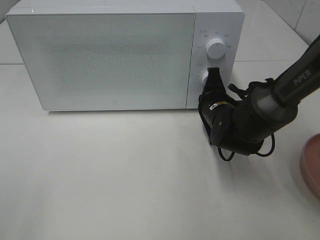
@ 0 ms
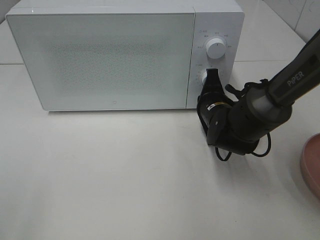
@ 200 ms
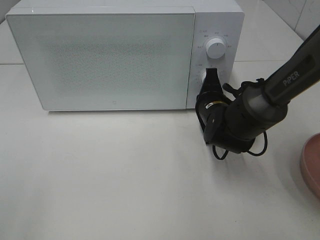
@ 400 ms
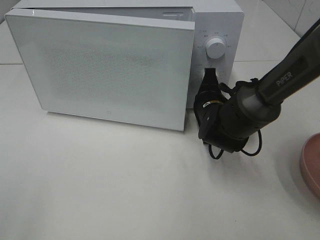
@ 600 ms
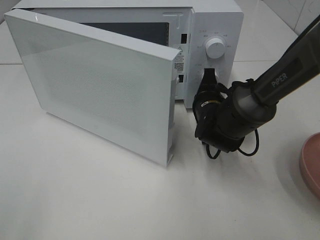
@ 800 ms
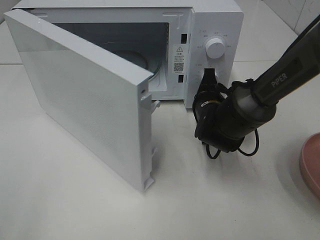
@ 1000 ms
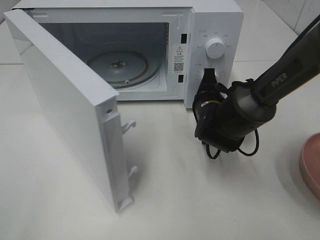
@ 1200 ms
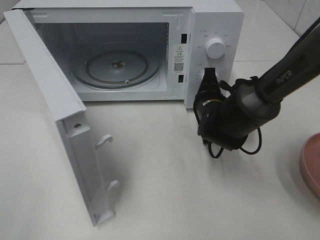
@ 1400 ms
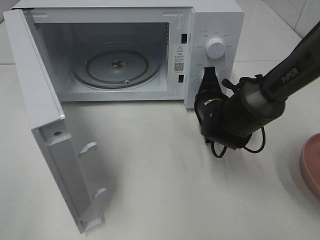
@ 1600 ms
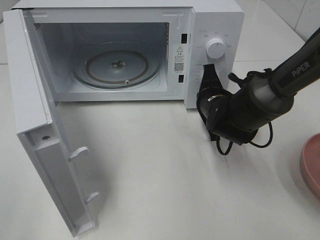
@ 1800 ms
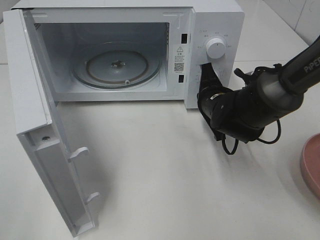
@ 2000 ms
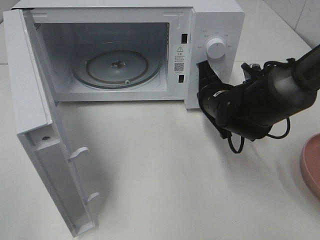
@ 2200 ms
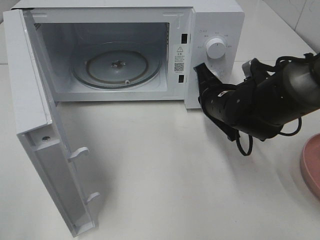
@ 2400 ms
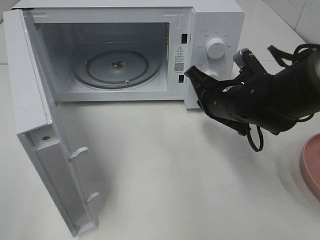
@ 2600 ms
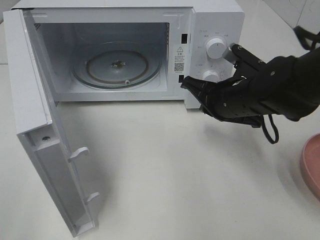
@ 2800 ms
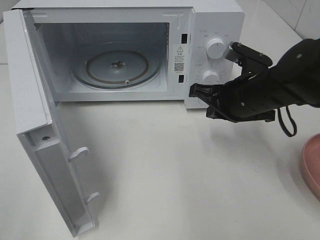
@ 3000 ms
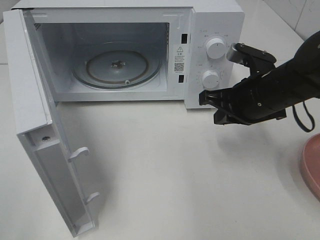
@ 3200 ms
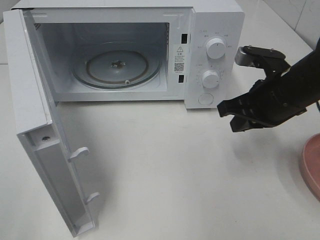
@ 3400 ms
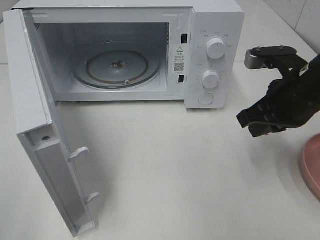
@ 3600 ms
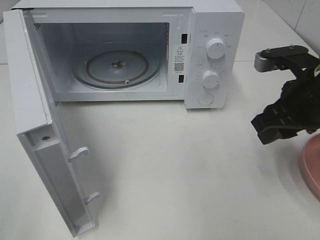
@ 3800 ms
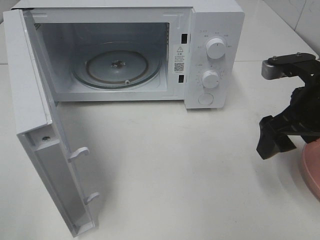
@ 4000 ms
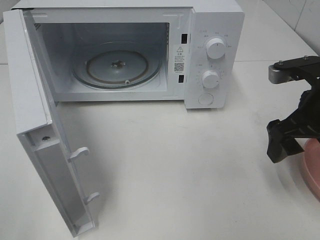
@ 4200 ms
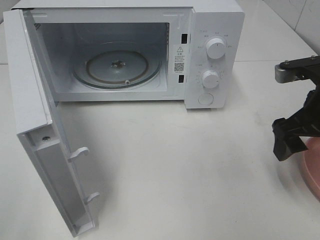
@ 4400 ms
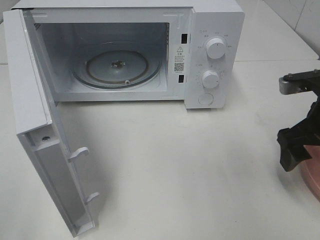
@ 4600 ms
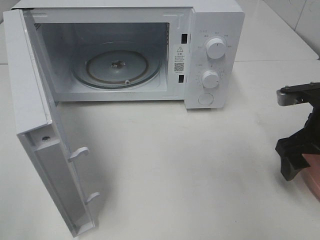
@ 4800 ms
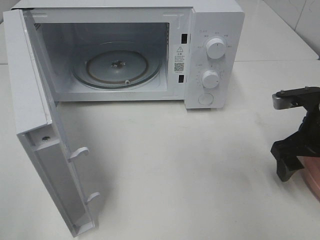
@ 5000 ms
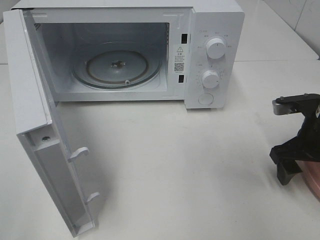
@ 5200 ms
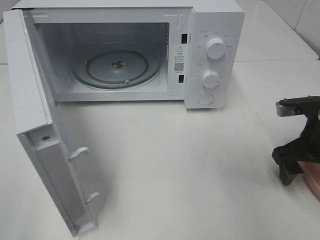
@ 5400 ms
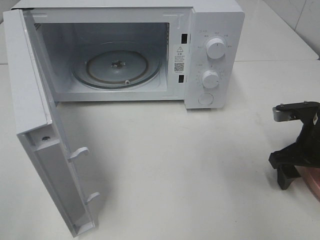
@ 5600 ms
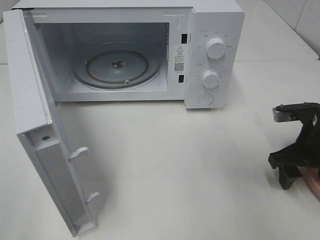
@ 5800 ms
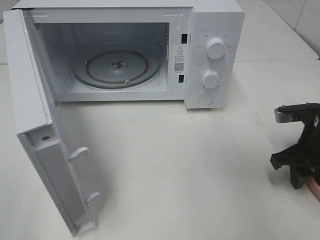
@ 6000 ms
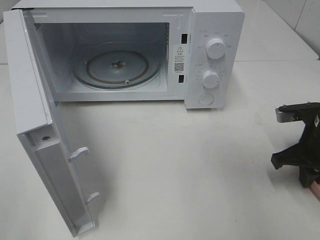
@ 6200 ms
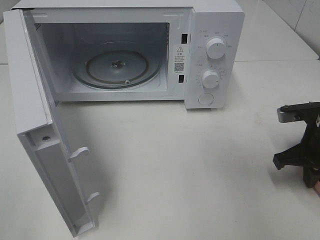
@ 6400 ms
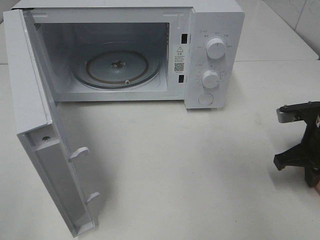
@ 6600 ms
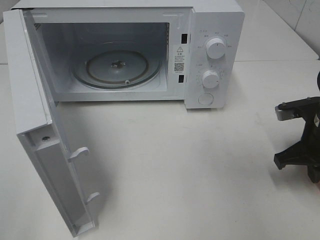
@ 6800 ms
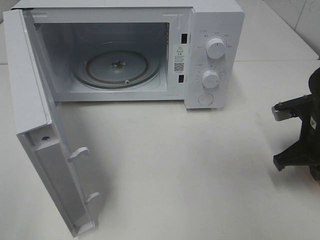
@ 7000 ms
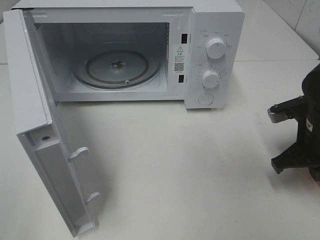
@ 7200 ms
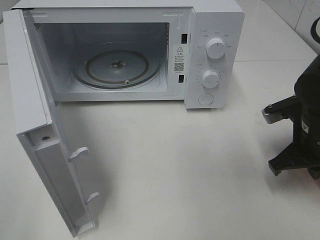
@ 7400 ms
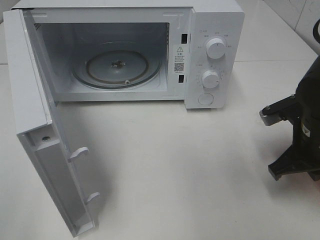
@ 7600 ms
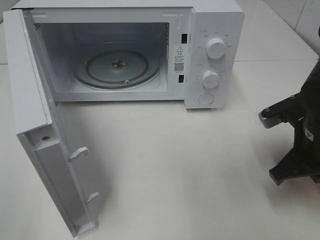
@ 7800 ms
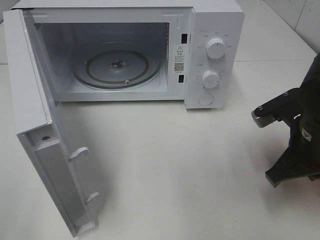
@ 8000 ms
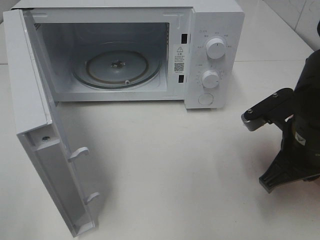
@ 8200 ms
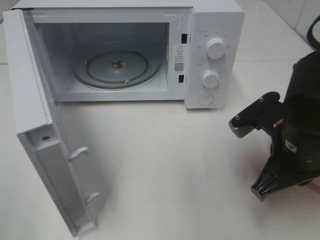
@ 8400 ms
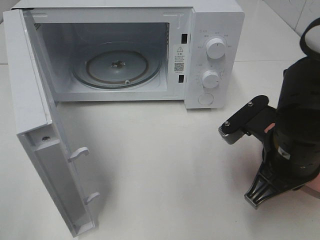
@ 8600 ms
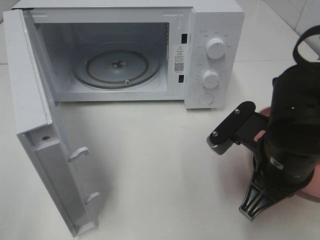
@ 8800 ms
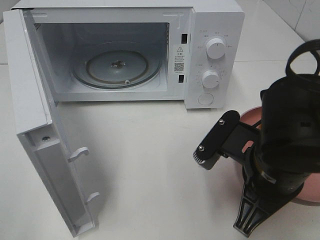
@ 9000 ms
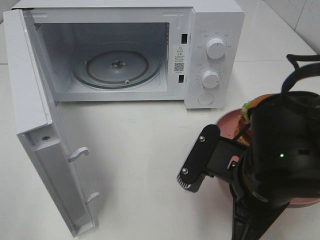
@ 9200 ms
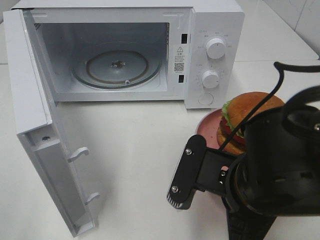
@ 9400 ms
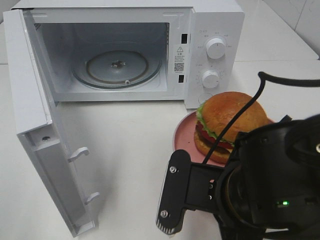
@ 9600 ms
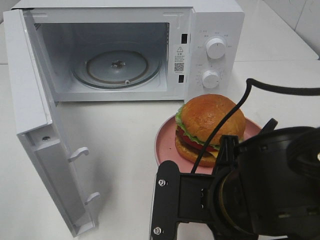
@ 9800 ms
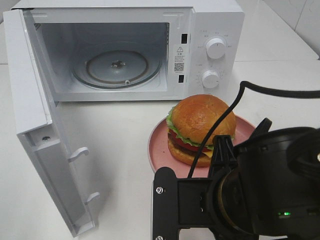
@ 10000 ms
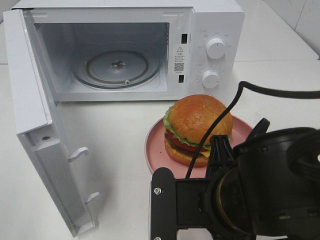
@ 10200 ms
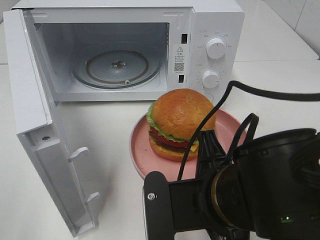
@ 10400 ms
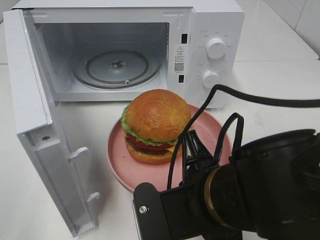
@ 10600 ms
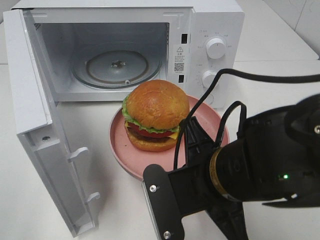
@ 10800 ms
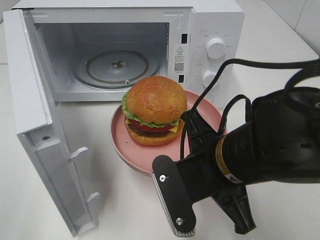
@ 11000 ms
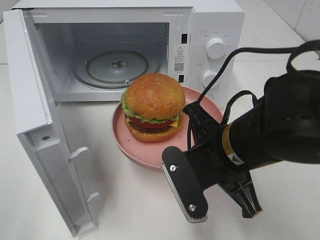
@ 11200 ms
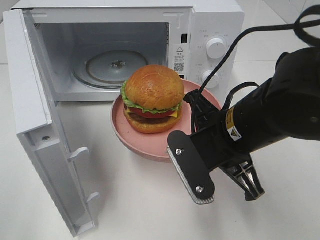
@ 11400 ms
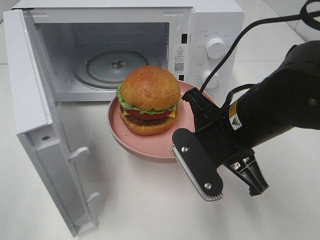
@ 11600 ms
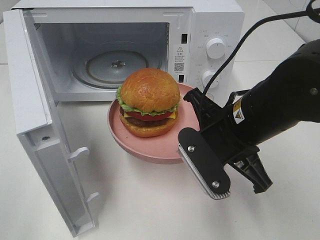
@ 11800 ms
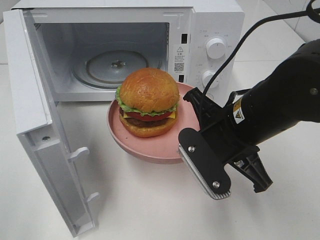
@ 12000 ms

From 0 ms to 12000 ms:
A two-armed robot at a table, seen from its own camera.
Task of the whole recording: Heat the burger.
Step, from 0 ms to 2200 ms: Right hand: press the switch.
Step, from 2400 ms to 6600 ms: Right hand: grab the plate with the hamburger.
From 1600 ms to 3000 ms: The right gripper moves upward and backward, approximately 10 cm.
From 3000 ms to 4400 ms: The right gripper moves to the right and backward, some 10 cm, and opens its fingers.
From 4400 ms to 6000 ms: The right gripper is displaced downward by roughly 10 cm, and closes up.
From 6000 ms to 7600 ms: The right gripper ends up approximately 5 cm from where it was, and closes up.
From 7600 ms to 9000 ms: The right gripper shifts some 15 cm to the left and backward.
From 9000 ms to 10400 ms: The right gripper heads to the left, covering roughly 5 cm.
From 10400 ms to 12000 ms: The right gripper shifts about 10 cm forward.

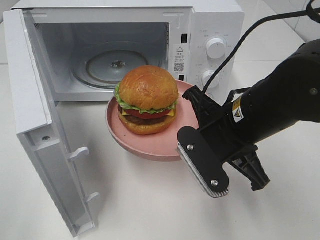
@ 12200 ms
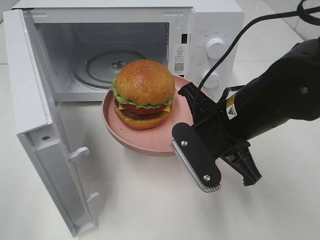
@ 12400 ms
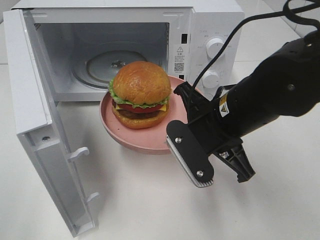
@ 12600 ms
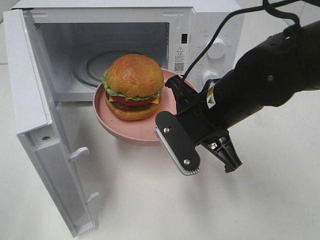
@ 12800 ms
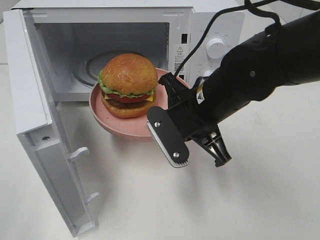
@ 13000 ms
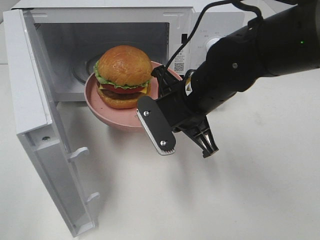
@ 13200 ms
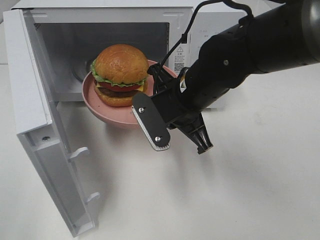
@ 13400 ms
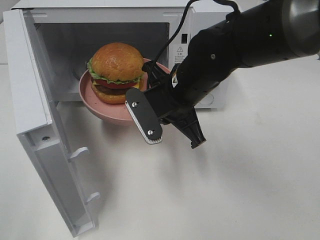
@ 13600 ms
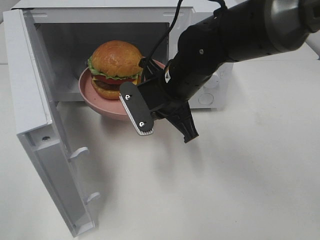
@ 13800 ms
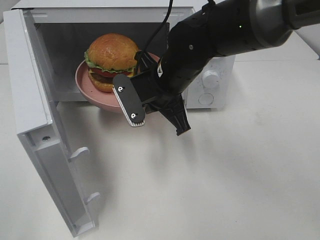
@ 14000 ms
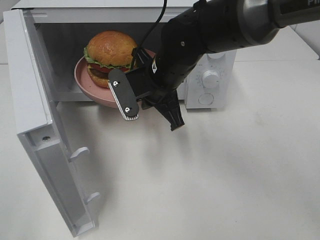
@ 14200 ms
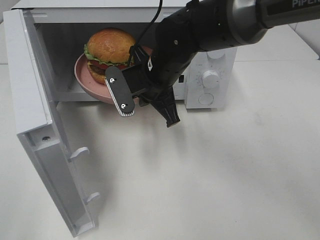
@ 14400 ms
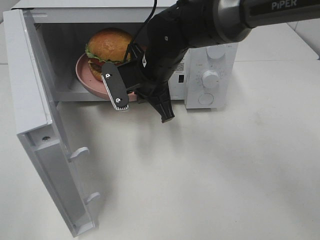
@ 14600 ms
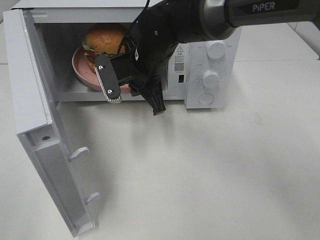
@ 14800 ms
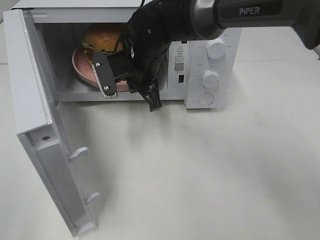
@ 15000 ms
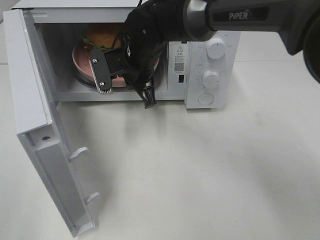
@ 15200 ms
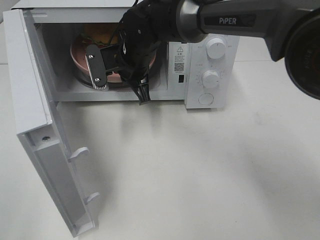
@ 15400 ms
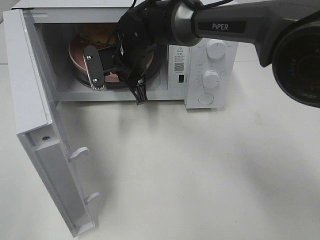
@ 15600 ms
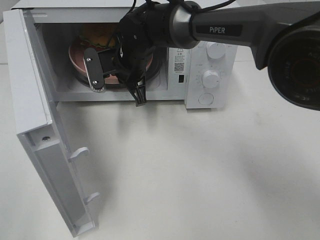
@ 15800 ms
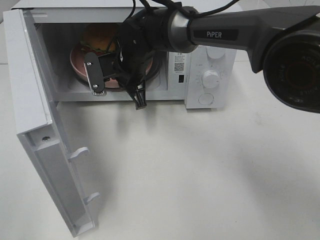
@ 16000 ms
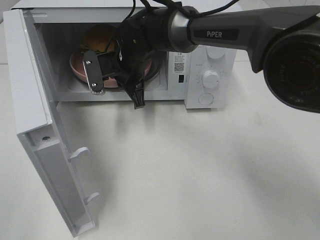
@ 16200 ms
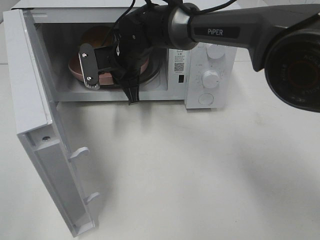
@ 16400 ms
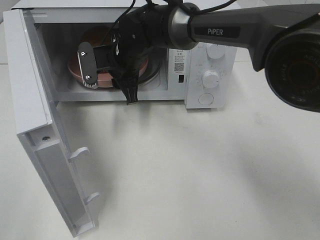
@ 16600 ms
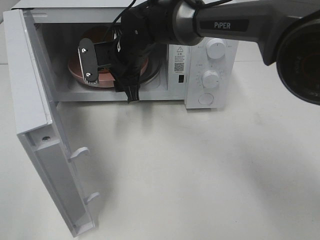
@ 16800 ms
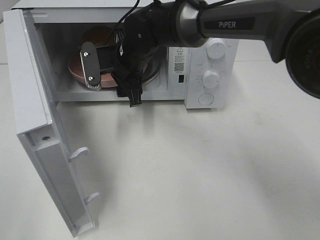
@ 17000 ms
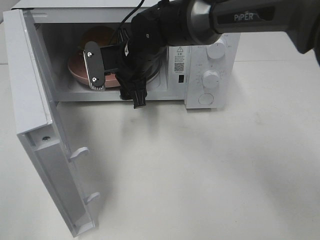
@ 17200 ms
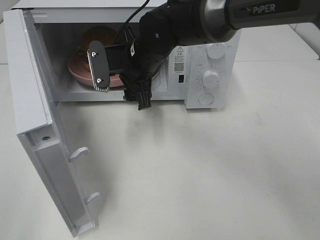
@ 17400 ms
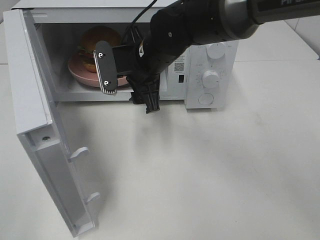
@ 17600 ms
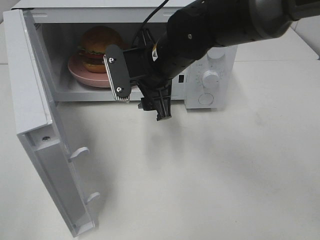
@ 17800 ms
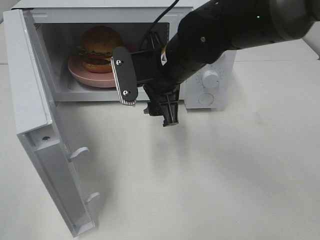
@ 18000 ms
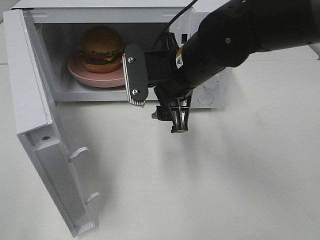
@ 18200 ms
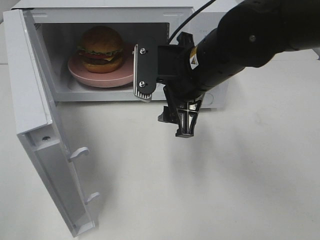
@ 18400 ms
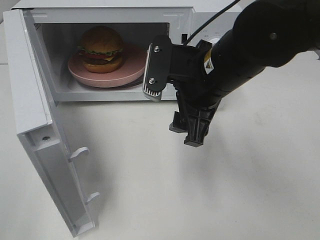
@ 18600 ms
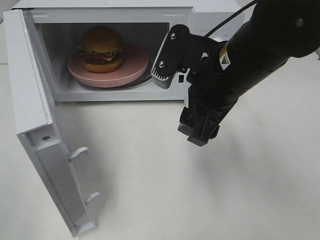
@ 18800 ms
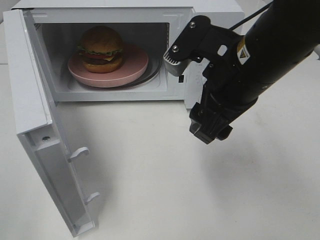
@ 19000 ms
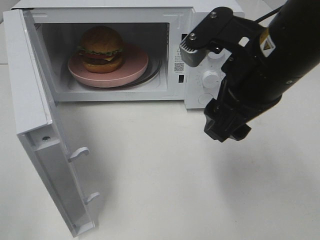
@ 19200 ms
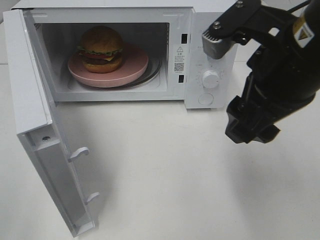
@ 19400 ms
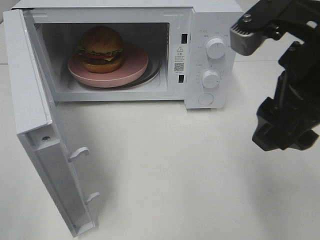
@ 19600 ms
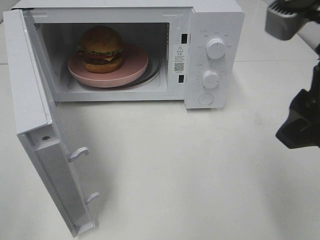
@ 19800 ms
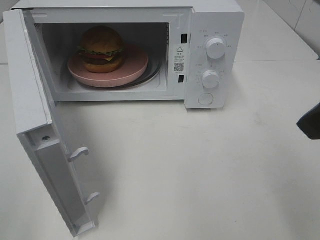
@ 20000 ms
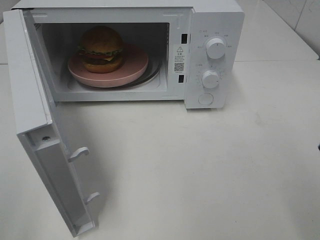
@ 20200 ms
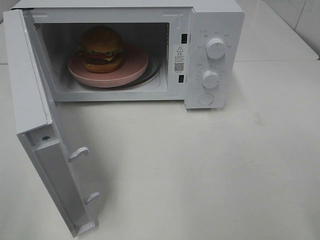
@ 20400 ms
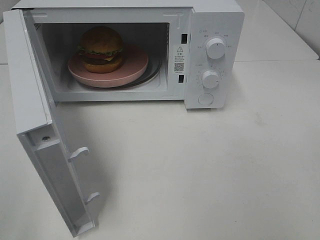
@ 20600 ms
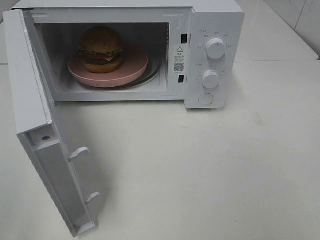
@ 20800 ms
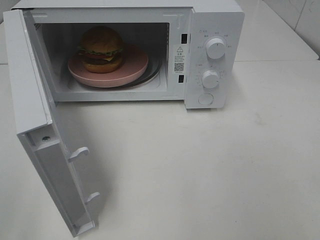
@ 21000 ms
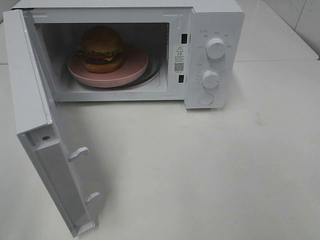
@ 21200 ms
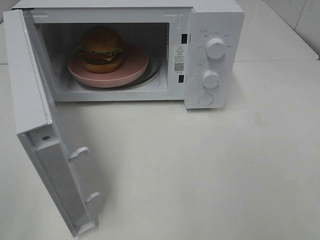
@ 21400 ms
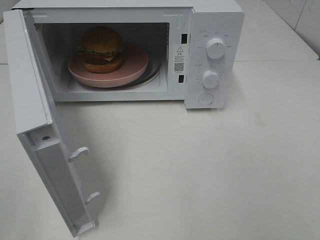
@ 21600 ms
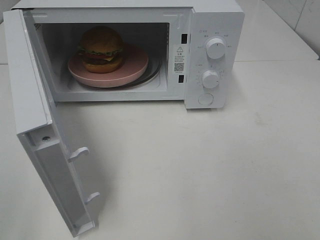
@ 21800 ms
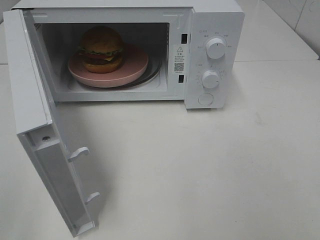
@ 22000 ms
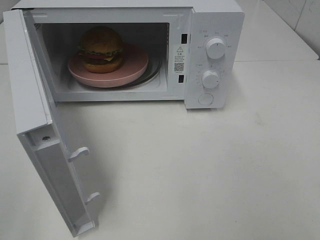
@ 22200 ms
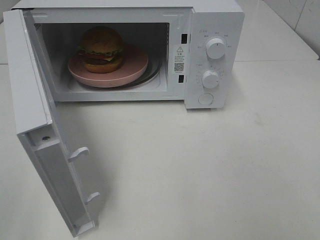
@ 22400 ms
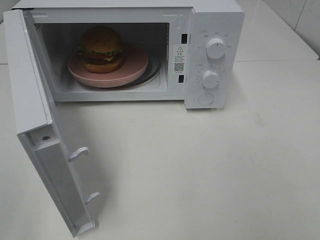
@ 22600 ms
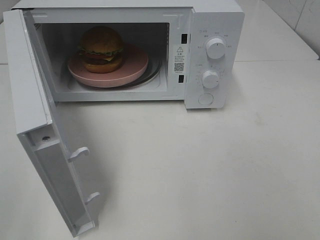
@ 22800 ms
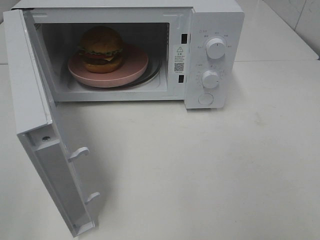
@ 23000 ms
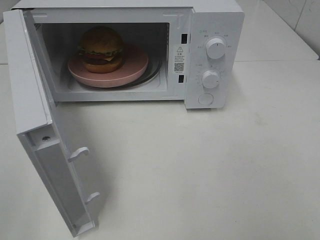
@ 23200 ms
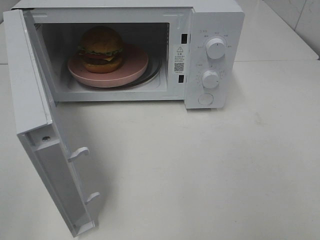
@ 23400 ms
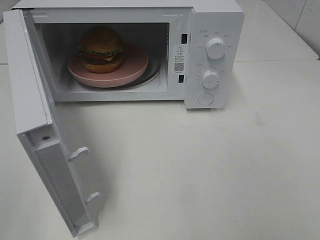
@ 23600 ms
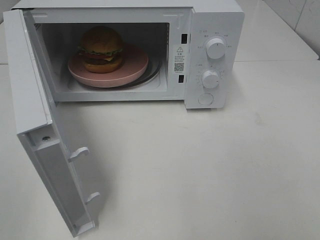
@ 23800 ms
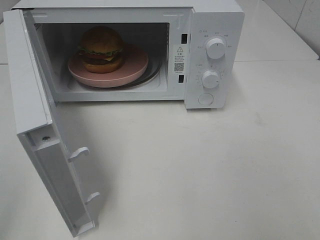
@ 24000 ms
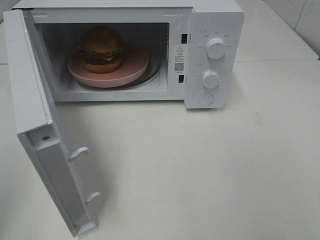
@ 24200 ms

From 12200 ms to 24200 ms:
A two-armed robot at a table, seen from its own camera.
Task of the whole recording: Heat the burger.
Step, from 12200 ms to 16400 ms: Right hand: place the plate in the microwave.
From 12200 ms to 13800 ms: The right gripper travels forward and to the left by approximately 10 cm.
From 13800 ms to 15200 ms: The right gripper moves forward and to the left, some 10 cm.
From 15200 ms to 16600 ms: The right gripper opens.
From 16600 ms to 18200 ms: The right gripper goes about 15 cm backward and to the right.
From 18200 ms to 19800 ms: The right gripper travels backward, to the right and upward by about 20 cm.
From 19800 ms to 21200 ms: The right gripper moves backward and to the right, approximately 20 cm.
